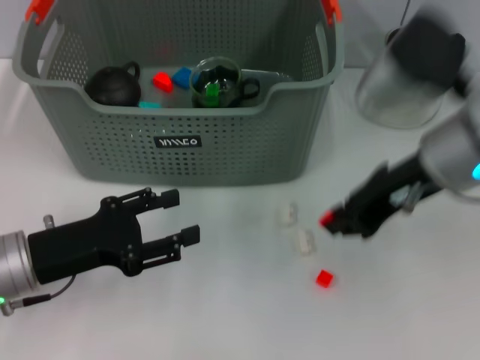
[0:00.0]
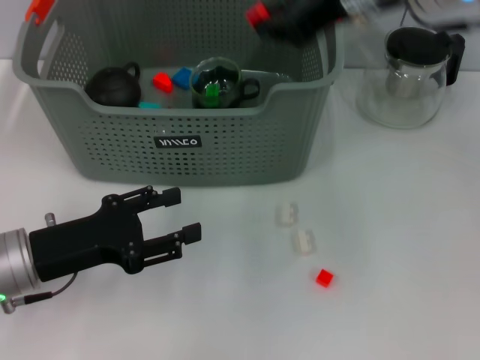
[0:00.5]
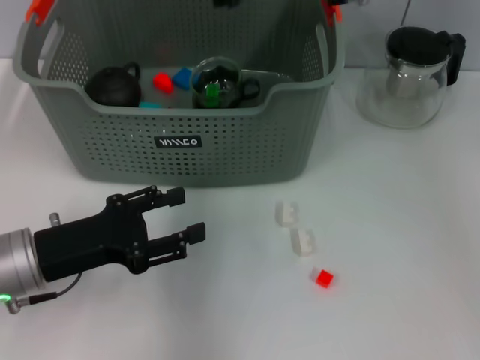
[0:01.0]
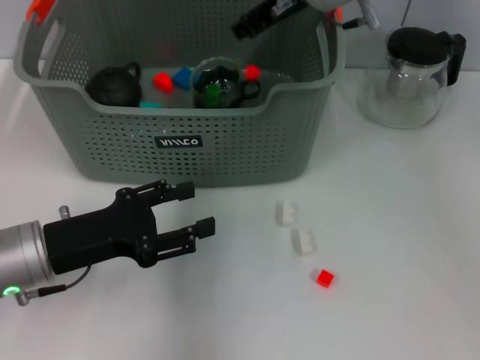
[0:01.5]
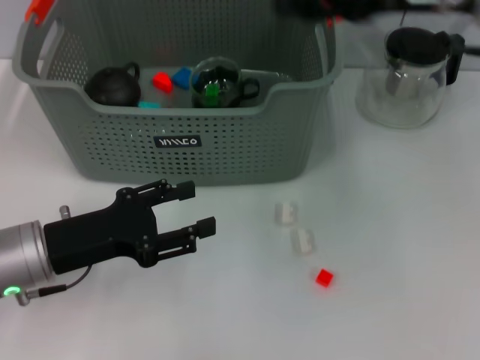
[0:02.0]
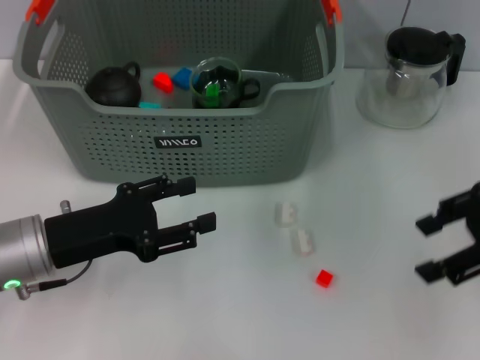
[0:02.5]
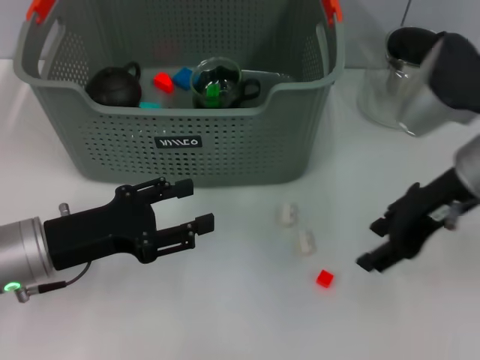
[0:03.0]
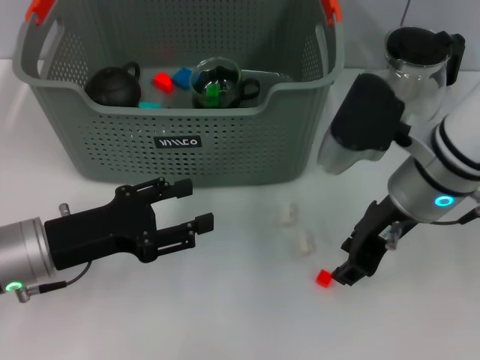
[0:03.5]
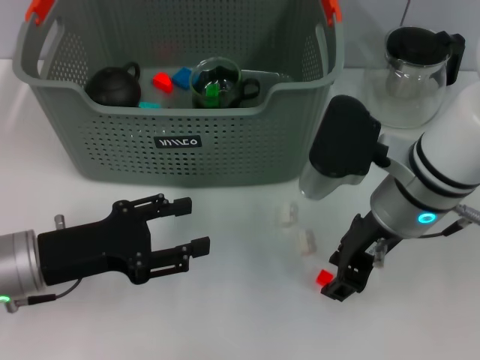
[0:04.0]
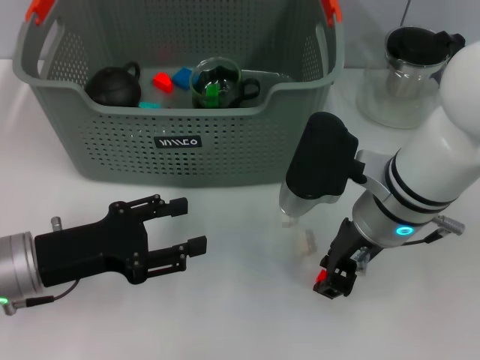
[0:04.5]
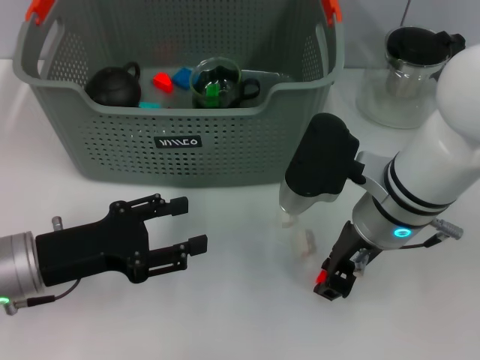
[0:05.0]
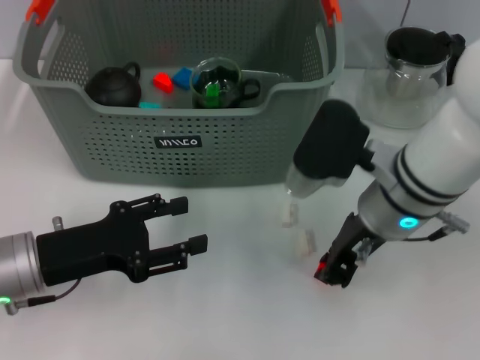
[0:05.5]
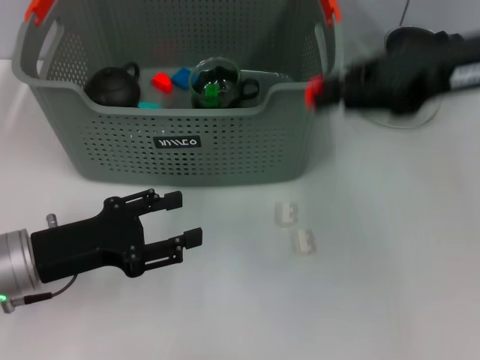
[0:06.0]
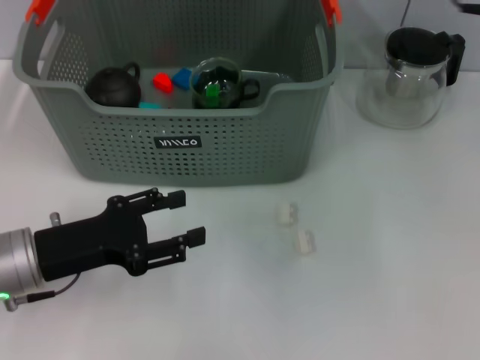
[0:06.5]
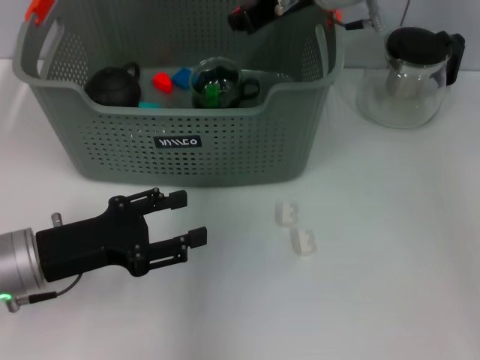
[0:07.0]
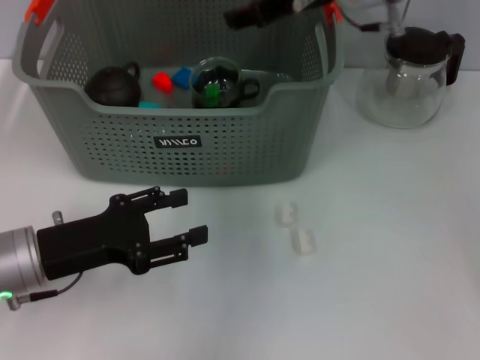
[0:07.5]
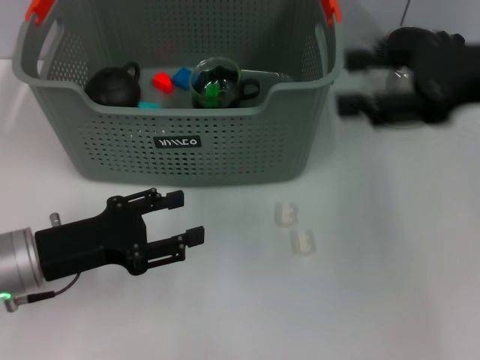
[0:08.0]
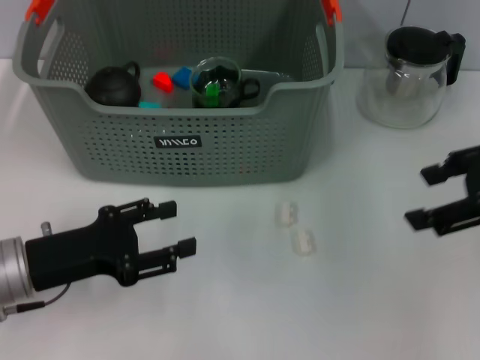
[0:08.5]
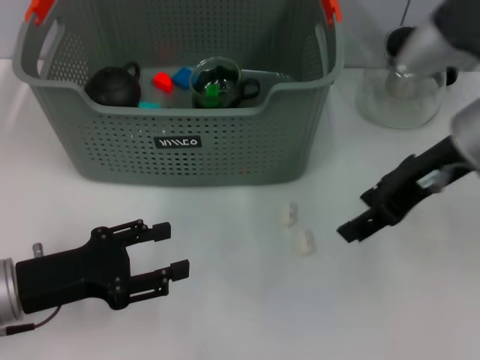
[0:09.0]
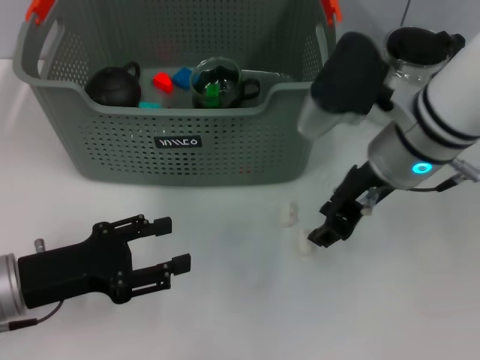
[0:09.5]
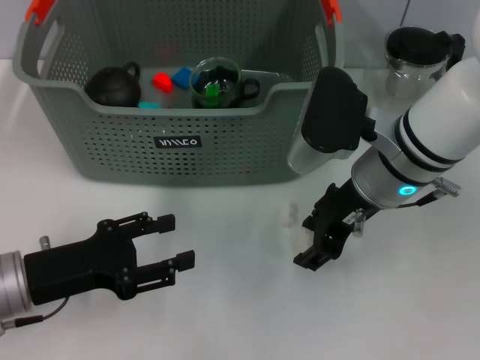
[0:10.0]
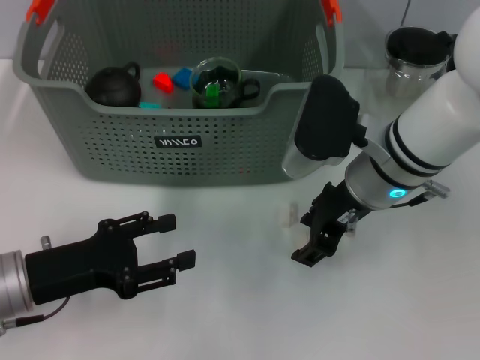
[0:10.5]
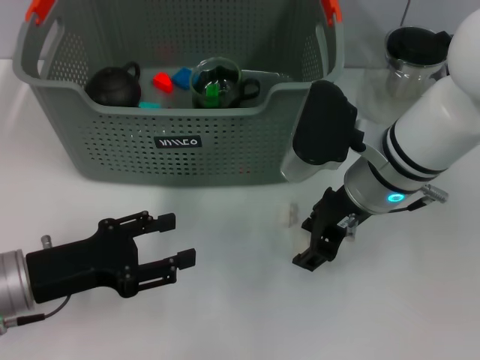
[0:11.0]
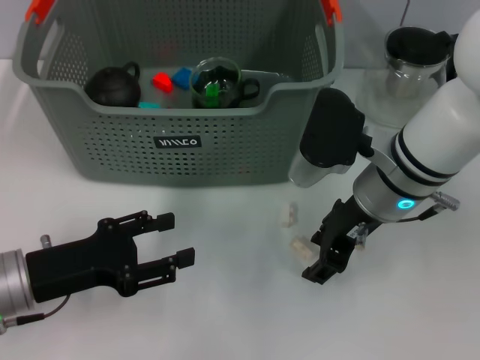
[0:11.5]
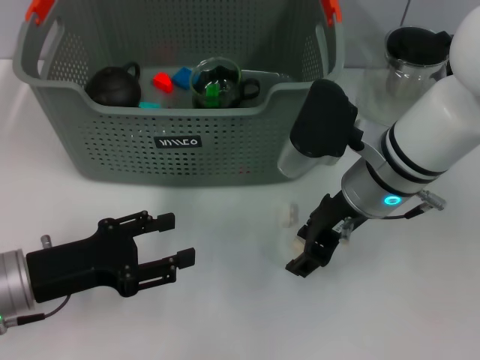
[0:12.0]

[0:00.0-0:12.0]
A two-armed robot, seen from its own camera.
Task of the whole recording: pick up the teacup on the table and place it into the storage bin, pick up the block on the table and place it into the storage bin.
Step, 0:00.0 to 0:01.5: Place the orange block in the storage box with right gripper.
Step, 0:02.0 to 0:05.0: Grasp the orange block with right gripper.
Step, 0:05.5 to 0:07.5: Place the orange block in the storage box with right gripper.
0:00.0 to 0:02.0: The right gripper travels forward and upward by about 10 cm, and opens its fingers.
0:02.0 to 0:04.0: The right gripper heads downward, to the left and backward, covering some 15 cm.
0:04.0 to 0:06.0: The right gripper moves upward and to the right, roughly 15 cm, and closes its fingers.
0:06.0 to 0:08.0: The right gripper travels to the left and back again, approximately 15 cm each way, and opens up.
0:08.0 to 0:10.0: The right gripper moves to the left and downward, about 15 cm.
0:10.0 to 0:12.0: The grippers move only a little.

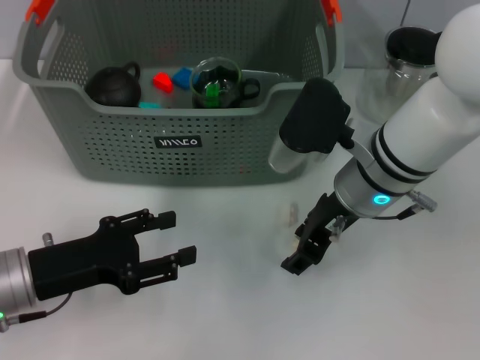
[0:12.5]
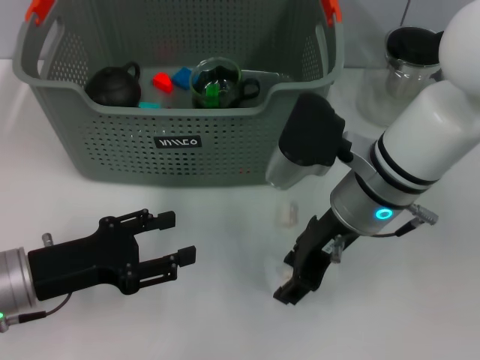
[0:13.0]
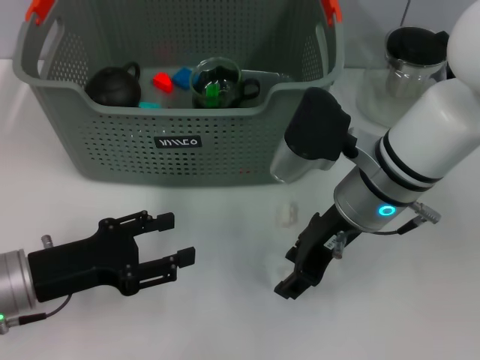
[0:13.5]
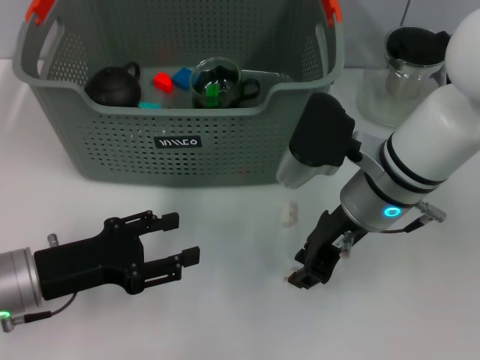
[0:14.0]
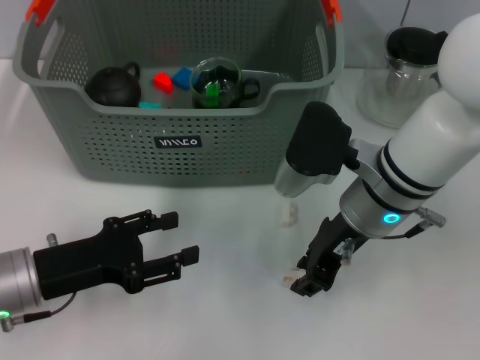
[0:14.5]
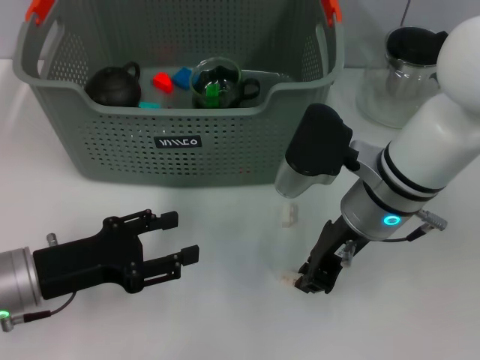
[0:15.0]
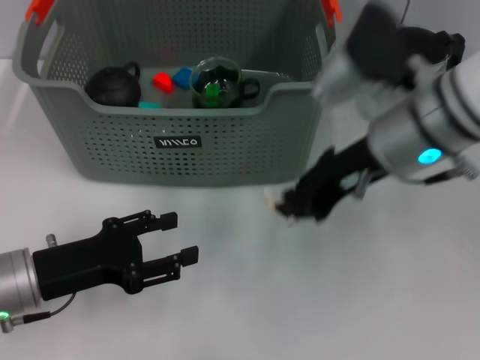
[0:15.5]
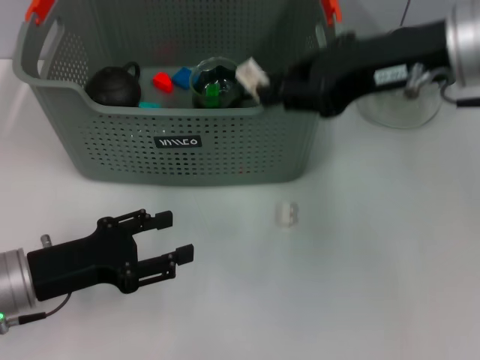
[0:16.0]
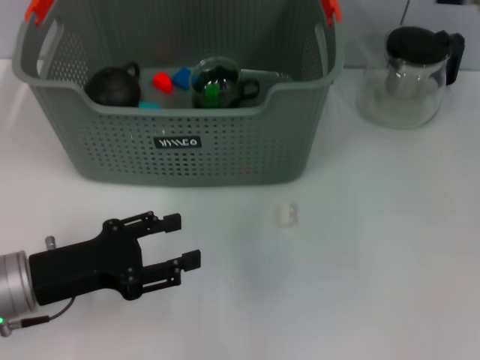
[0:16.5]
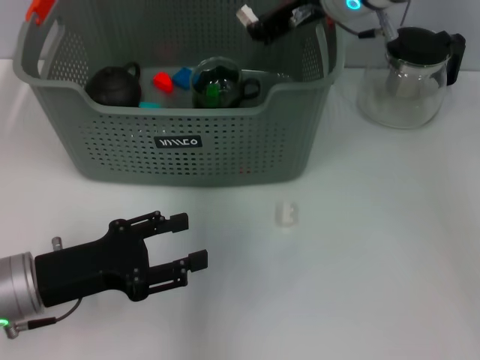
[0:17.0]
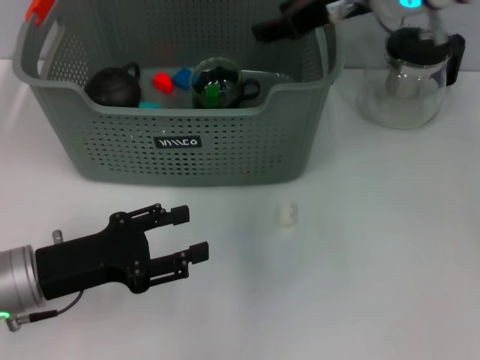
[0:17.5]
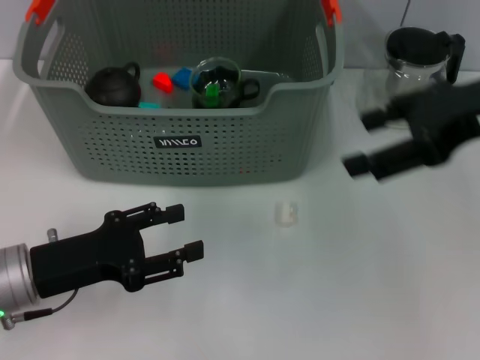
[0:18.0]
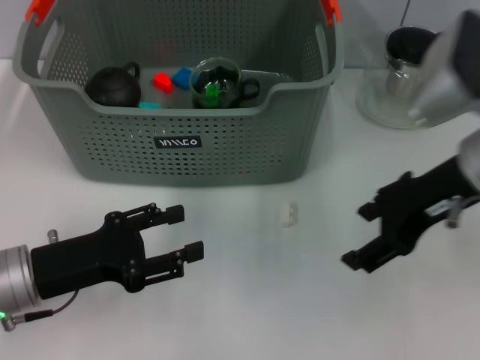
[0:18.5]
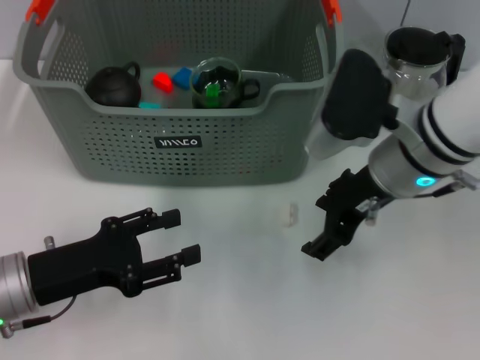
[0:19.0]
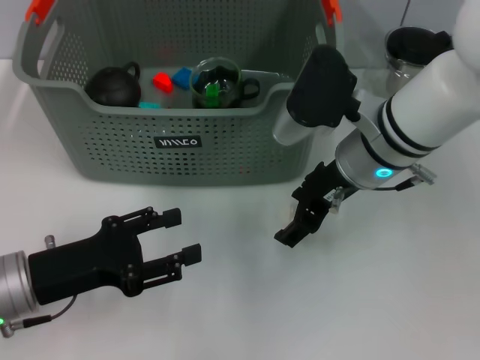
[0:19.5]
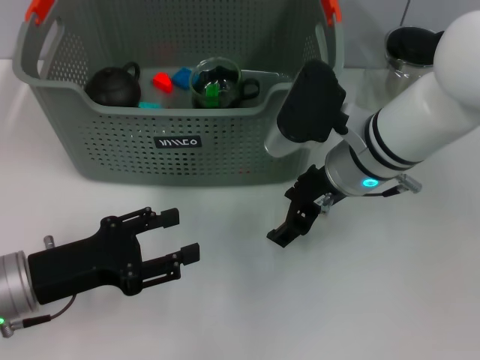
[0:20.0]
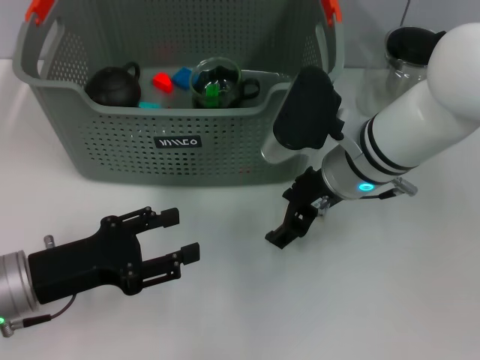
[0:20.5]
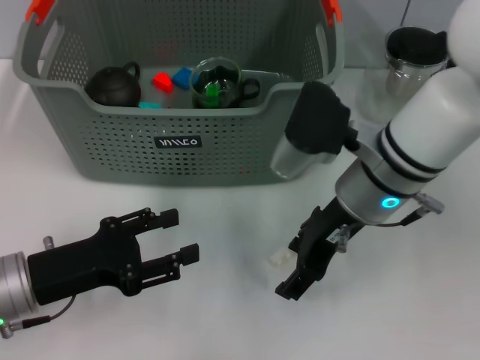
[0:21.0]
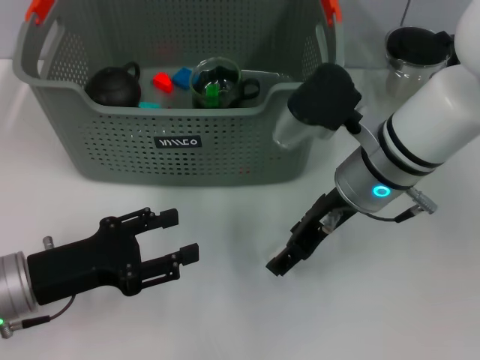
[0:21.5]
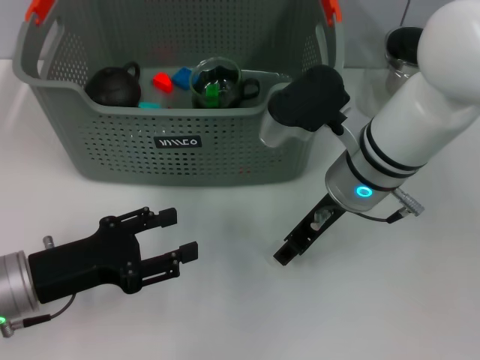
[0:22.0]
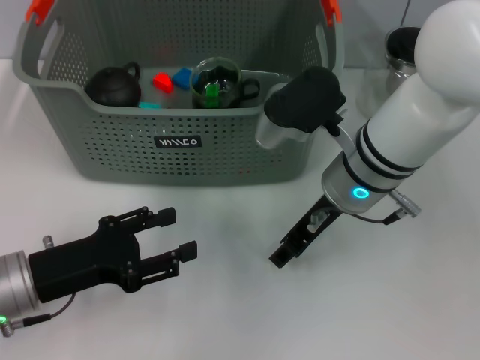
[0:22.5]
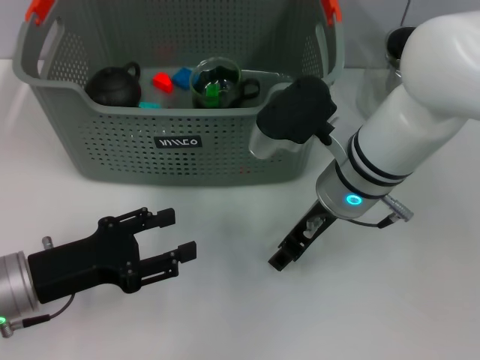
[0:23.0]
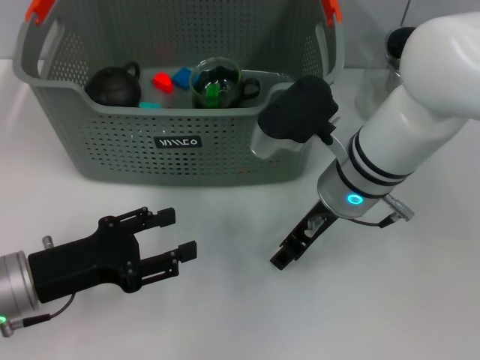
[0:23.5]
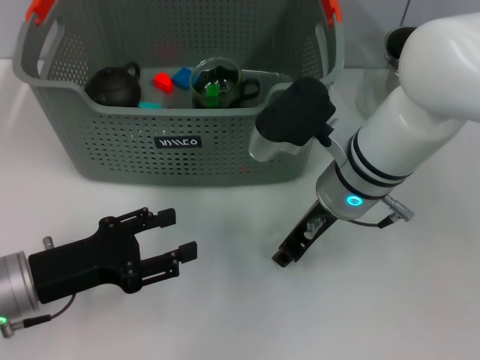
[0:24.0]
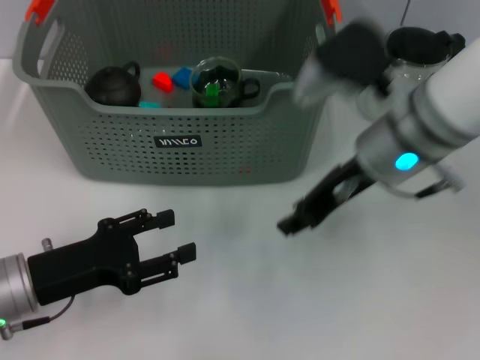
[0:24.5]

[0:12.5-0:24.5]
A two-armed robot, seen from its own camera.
Task of the whole recording: pick up the teacup on the table and place it into the storage bin, pick up the block on the table and place it into the storage bin.
Step, 0:12.5 to 0:15.0: Grasp the white block with right gripper.
Step, 0:15.5 to 0:17.5: Place the white block in the storage box with right gripper.
Step, 0:18.0 to 0:24.0: Grasp the white block with right gripper.
0:12.5 to 0:14.5: The grippers move only a little.
0:14.5 to 0:16.5: The right gripper travels upward and forward by about 20 cm.
0:16.5 to 0:18.5: The right gripper goes roughly 15 cm backward and downward, and opens its fingers.
0:18.5 to 0:20.5: The right gripper is displaced to the left, downward and forward by some 15 cm.
0:22.5 to 0:24.5: The right gripper ends up approximately 5 cm from where it was.

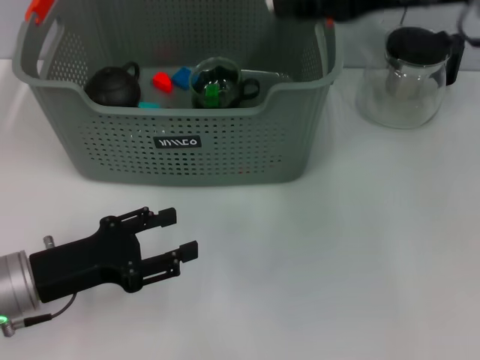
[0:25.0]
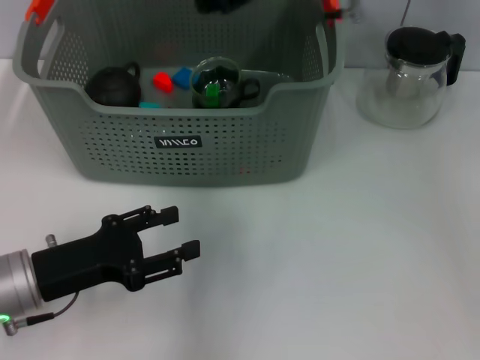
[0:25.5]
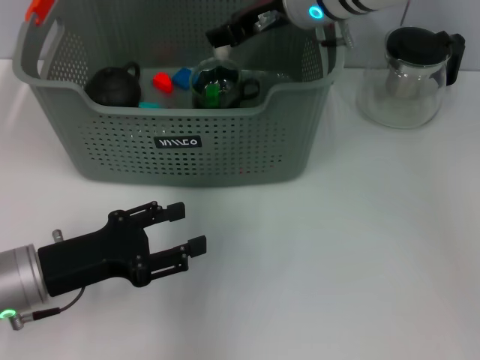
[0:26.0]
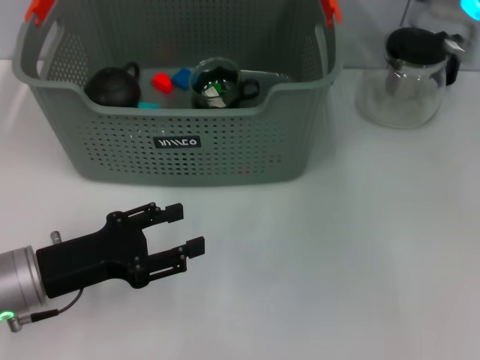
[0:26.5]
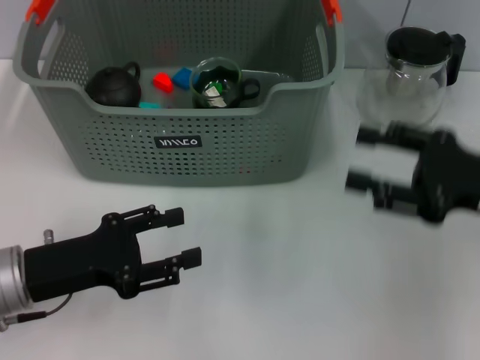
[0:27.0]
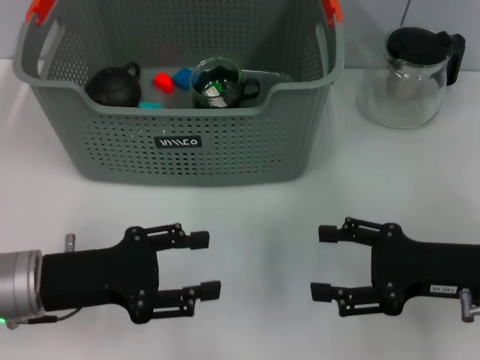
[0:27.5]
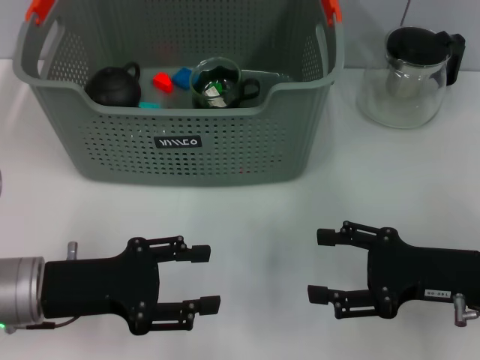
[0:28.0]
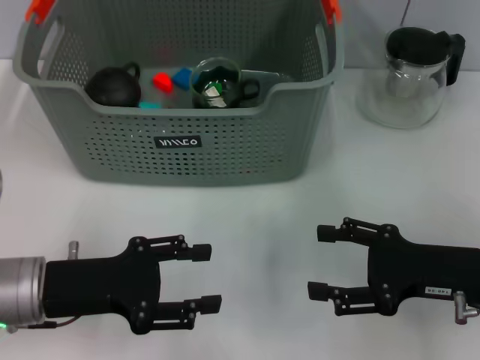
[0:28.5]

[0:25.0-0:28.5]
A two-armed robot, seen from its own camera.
Task of the whole recording: pick up the teacup on the table and place it into the storage bin, pick up the block on the table and place it into the storage bin.
Step, 0:25.0 to 0:26.0: Place the white block in the storage box with right gripper.
0:25.0 to 0:27.0: The right gripper heads downward, to the right and backward, covering roughly 20 cm.
0:27.0 to 0:28.5: The right gripper travels downward by some 5 cm.
